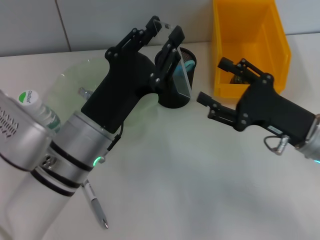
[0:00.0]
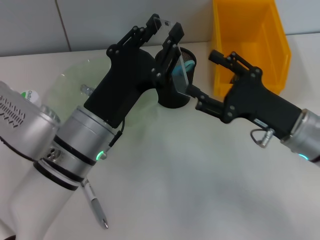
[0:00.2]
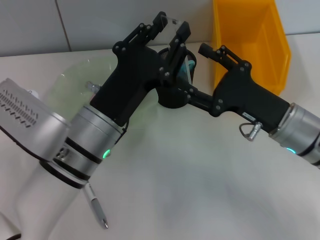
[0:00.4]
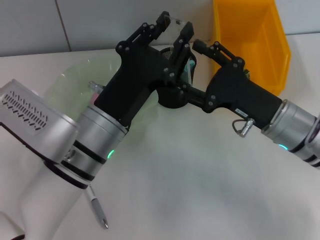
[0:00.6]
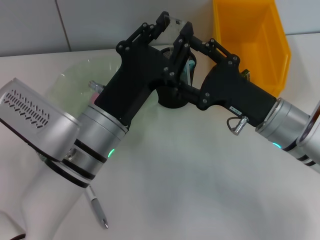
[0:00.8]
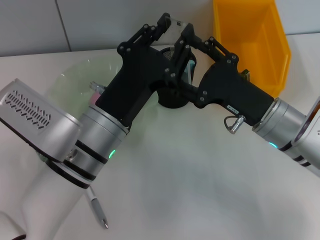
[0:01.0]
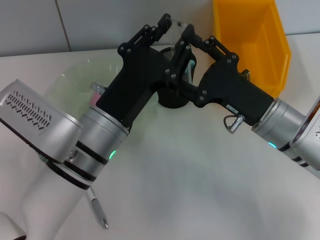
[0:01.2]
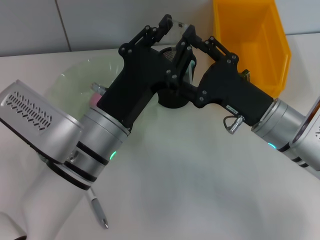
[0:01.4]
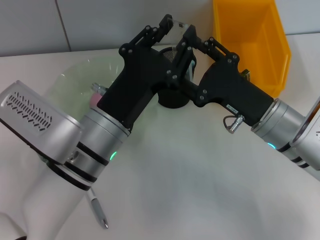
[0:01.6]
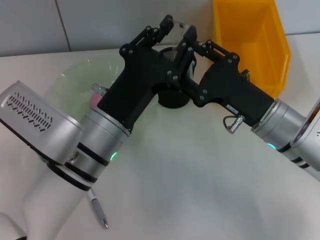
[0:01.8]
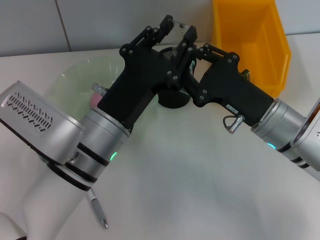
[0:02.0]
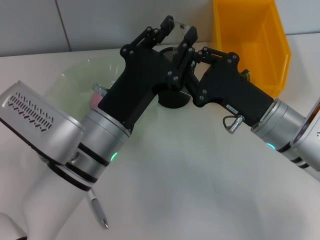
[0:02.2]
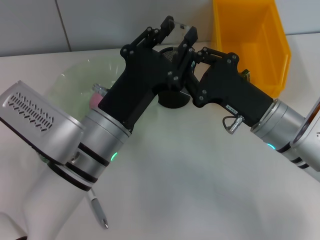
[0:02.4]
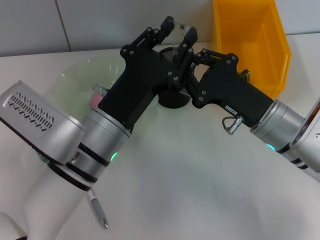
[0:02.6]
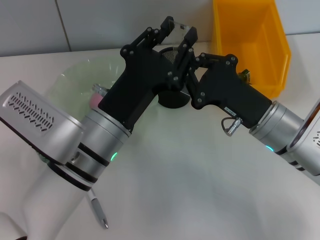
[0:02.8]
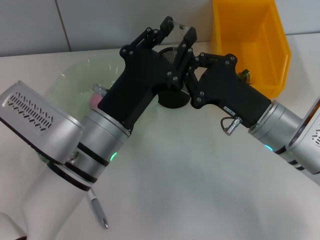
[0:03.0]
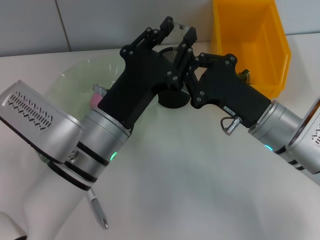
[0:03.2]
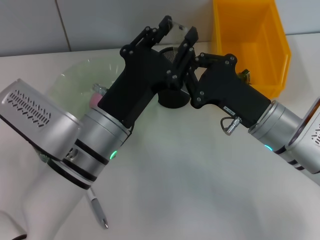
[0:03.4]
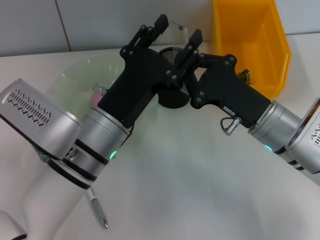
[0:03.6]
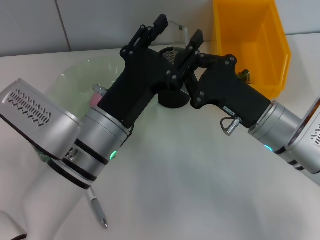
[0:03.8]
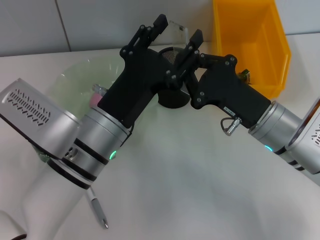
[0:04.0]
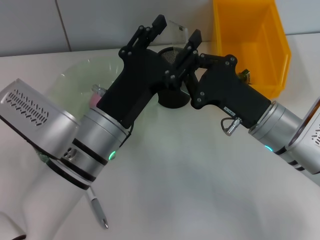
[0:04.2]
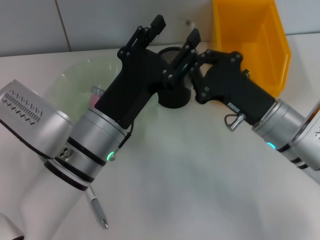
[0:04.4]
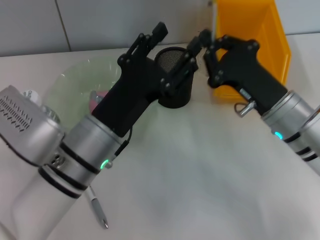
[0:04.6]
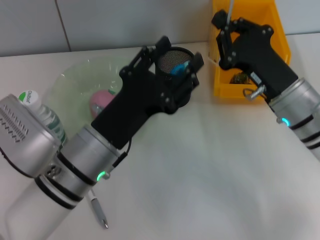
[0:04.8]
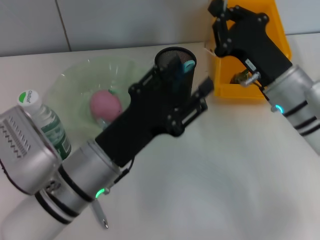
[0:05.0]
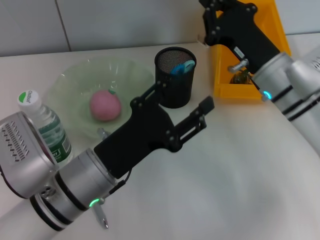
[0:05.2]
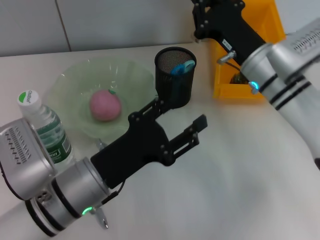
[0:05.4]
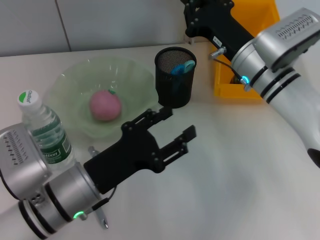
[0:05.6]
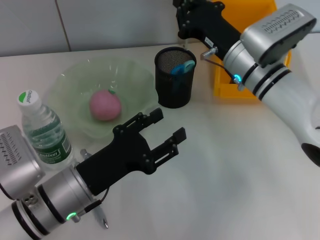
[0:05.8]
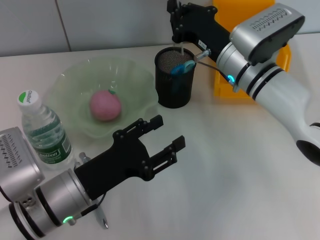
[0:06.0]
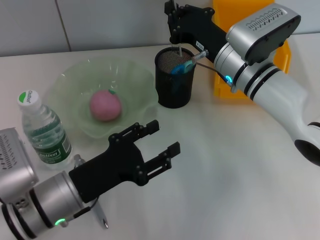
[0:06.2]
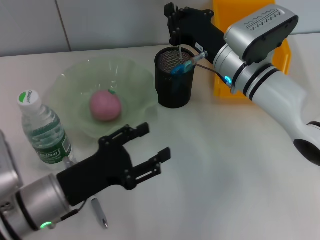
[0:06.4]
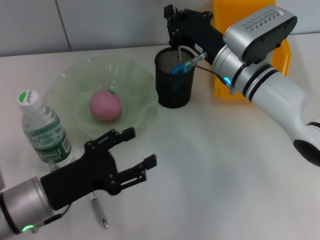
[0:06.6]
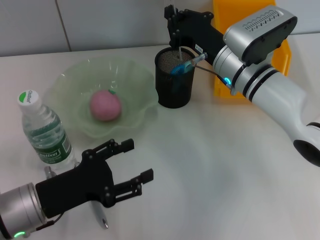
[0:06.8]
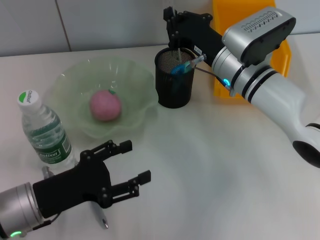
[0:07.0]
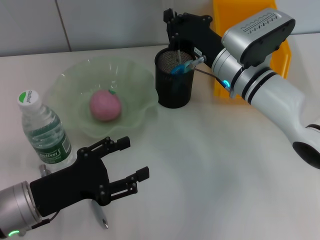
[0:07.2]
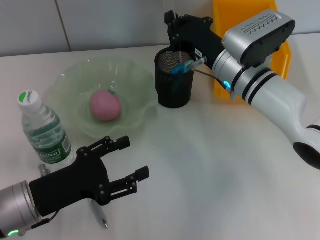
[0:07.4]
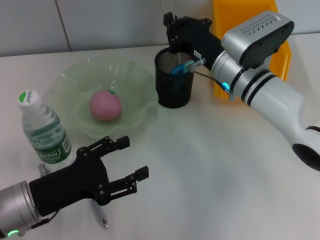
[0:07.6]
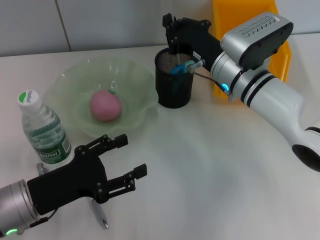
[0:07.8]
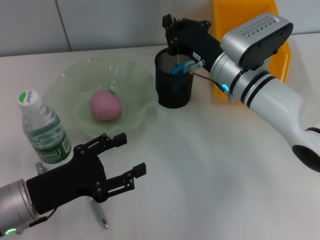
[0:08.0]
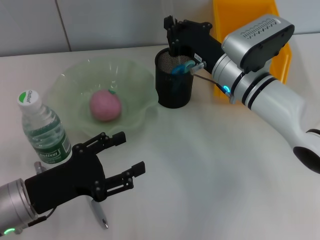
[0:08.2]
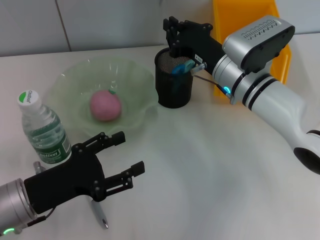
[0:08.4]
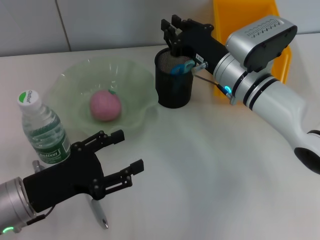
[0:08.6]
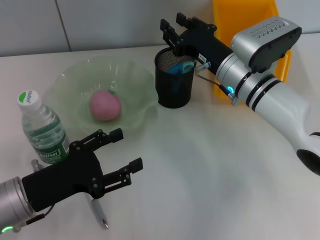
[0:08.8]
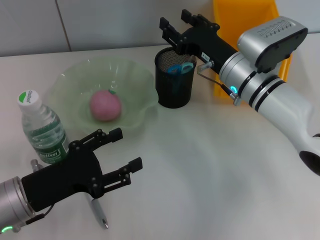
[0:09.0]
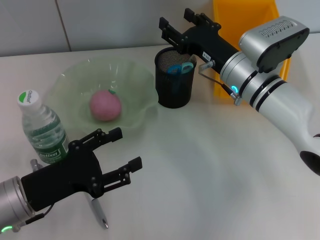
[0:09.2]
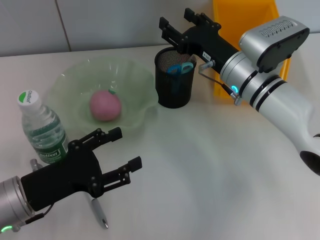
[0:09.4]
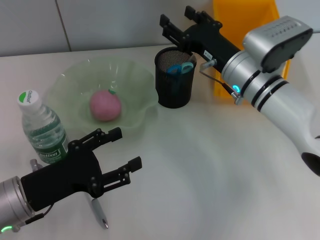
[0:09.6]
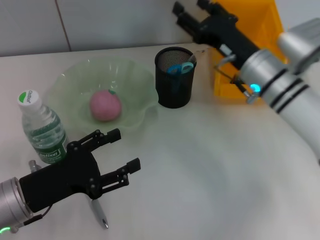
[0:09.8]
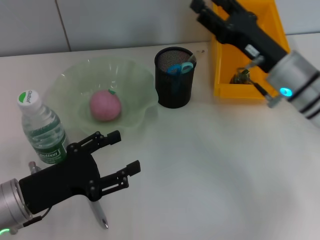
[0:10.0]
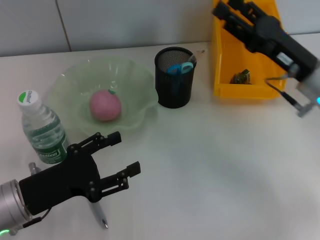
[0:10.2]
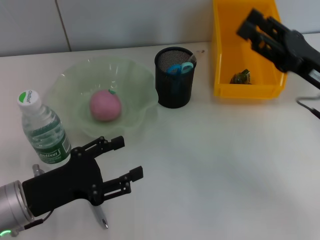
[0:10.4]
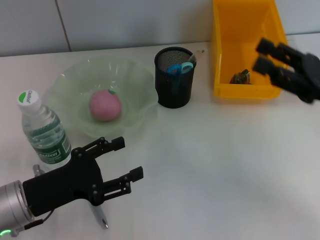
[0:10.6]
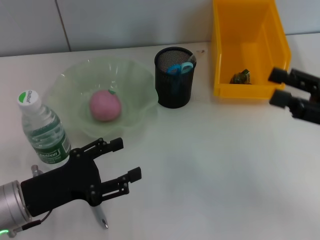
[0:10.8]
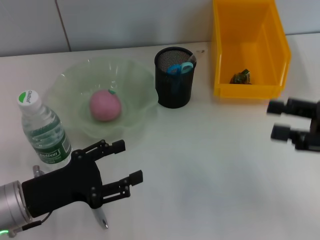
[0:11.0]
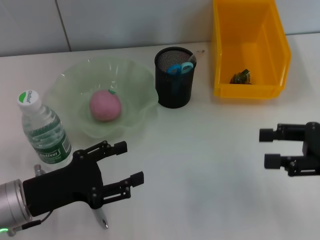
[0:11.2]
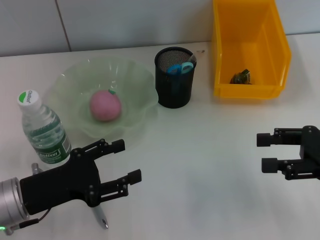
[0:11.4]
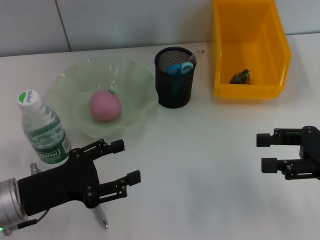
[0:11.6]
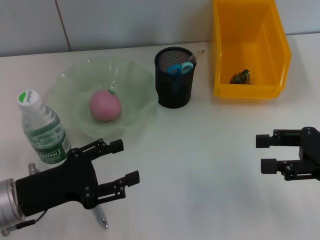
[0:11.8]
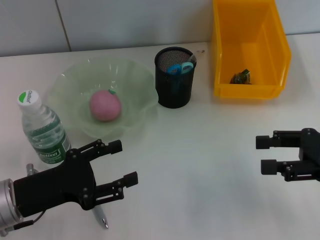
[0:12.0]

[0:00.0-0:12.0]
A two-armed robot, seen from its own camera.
Step, 0:00.0 to 0:03.8: Pass the ruler from the left hand to the right hand.
Step, 0:04.2 to 0:09.0: Place the ruler into the pen holder with the right hand.
0:00.0 to 0:01.6: The right gripper travels to the left by some 5 cm.
0:01.6 to 0:03.0: The right gripper closes its fingers.
0:03.0 to 0:04.4: The left gripper opens.
0:04.4 to 0:06.0: The right gripper moves forward, some 10 cm. Meanwhile the left gripper travels to the left and downward by some 10 cm.
0:06.0 to 0:07.6: The left gripper heads to the left, covering roughly 5 cm.
0:07.6 to 0:09.0: The right gripper opens up.
0:09.0 to 0:10.4: The right gripper shifts about 15 cm to the right and backward, and opens up.
0:10.4 to 0:12.0: The right gripper moves to the right, roughly 5 cm.

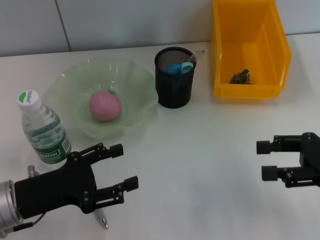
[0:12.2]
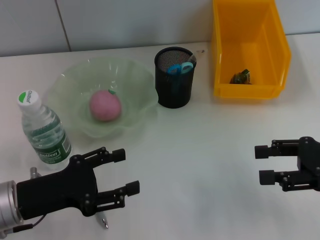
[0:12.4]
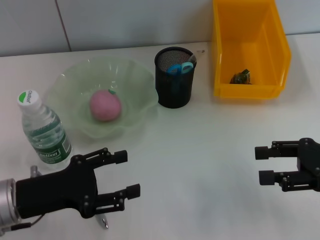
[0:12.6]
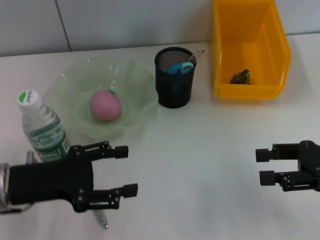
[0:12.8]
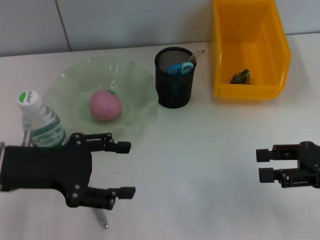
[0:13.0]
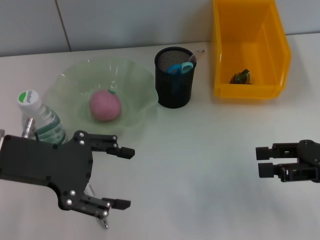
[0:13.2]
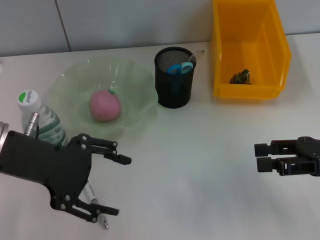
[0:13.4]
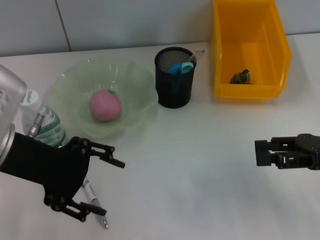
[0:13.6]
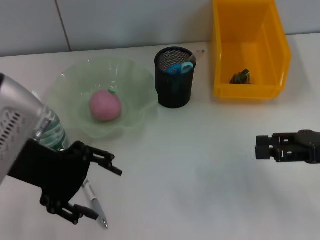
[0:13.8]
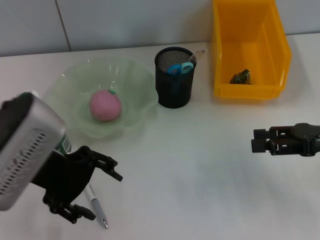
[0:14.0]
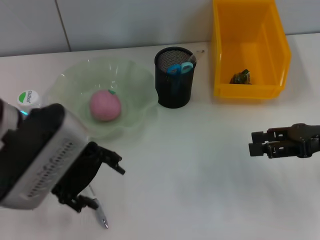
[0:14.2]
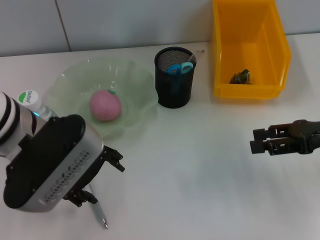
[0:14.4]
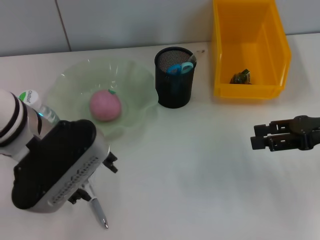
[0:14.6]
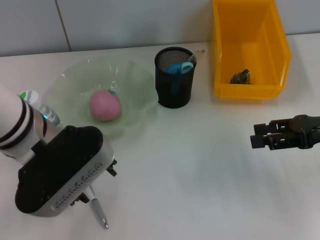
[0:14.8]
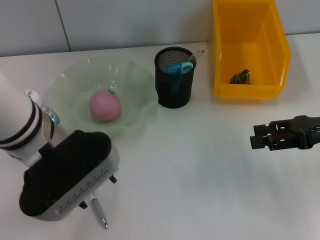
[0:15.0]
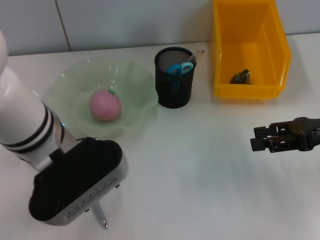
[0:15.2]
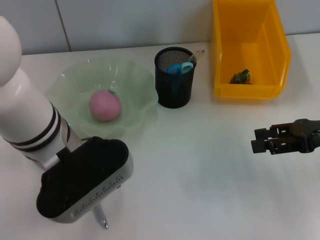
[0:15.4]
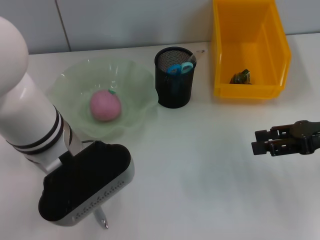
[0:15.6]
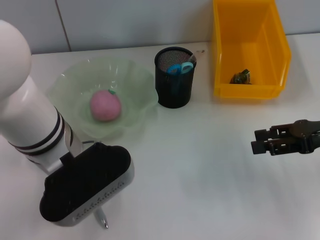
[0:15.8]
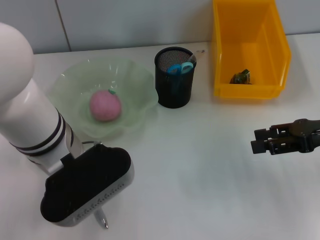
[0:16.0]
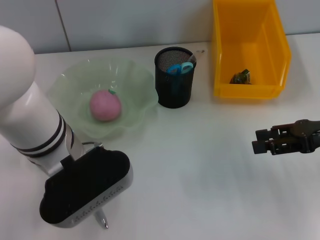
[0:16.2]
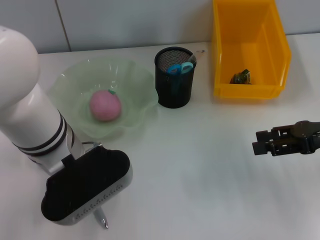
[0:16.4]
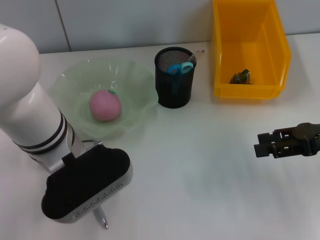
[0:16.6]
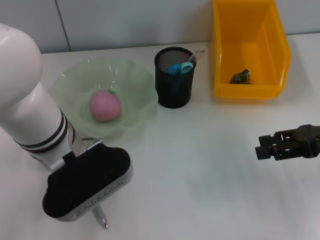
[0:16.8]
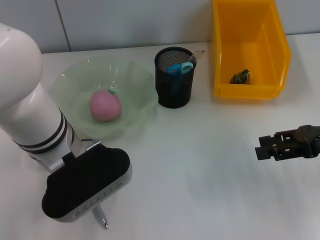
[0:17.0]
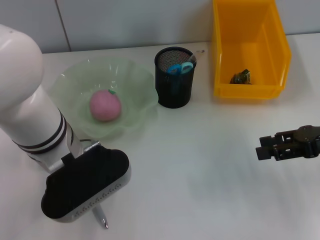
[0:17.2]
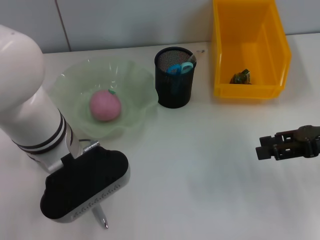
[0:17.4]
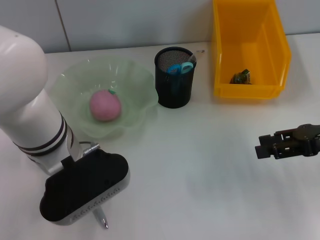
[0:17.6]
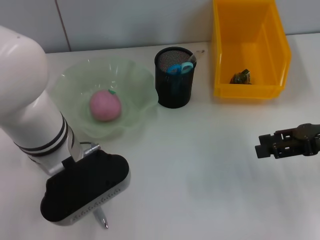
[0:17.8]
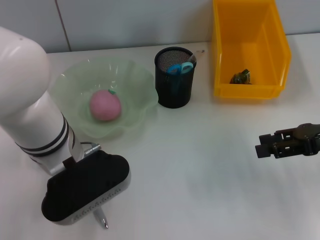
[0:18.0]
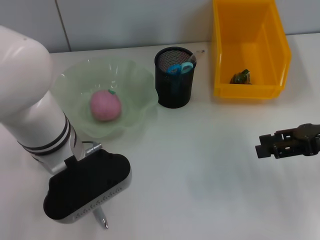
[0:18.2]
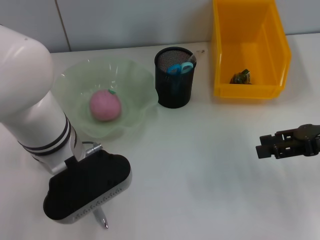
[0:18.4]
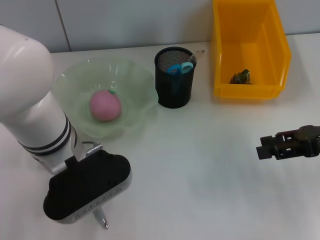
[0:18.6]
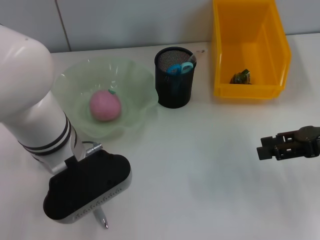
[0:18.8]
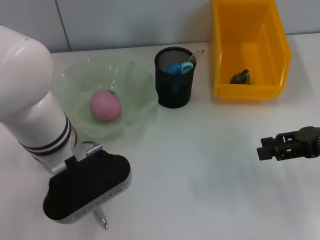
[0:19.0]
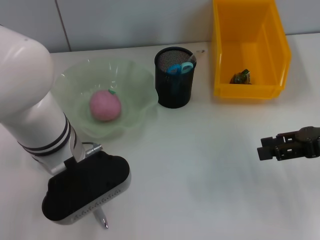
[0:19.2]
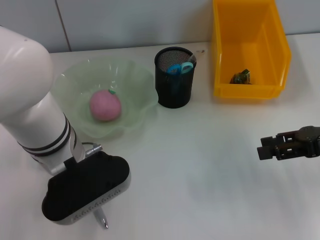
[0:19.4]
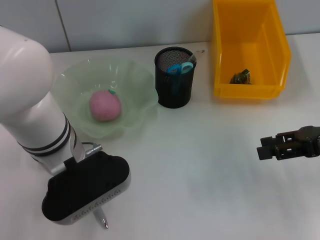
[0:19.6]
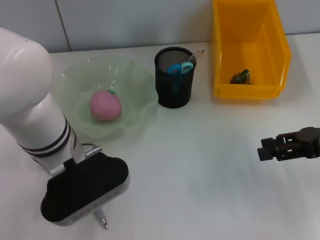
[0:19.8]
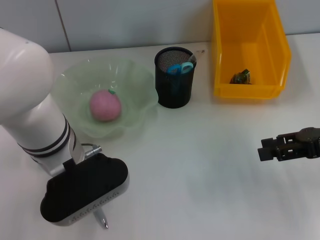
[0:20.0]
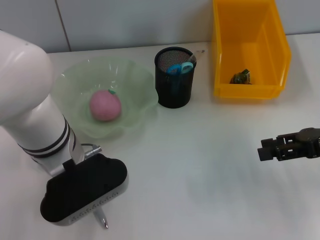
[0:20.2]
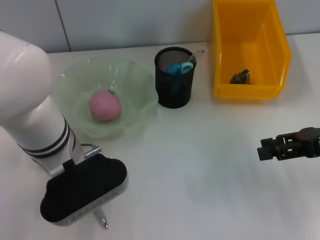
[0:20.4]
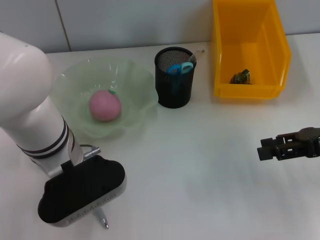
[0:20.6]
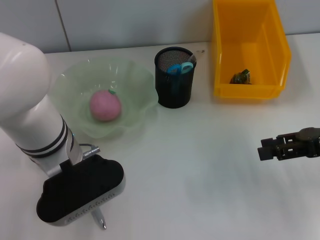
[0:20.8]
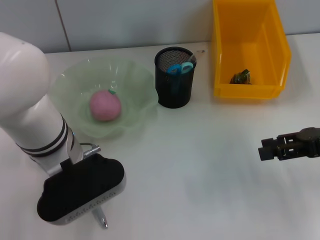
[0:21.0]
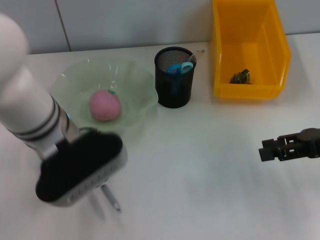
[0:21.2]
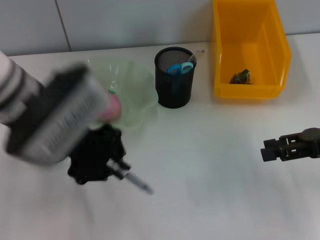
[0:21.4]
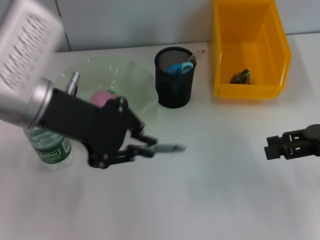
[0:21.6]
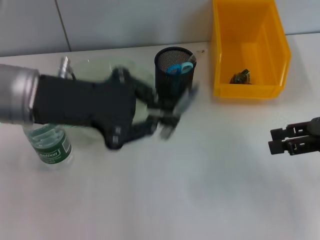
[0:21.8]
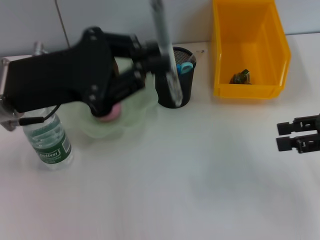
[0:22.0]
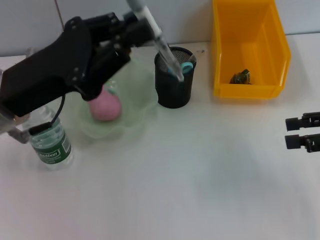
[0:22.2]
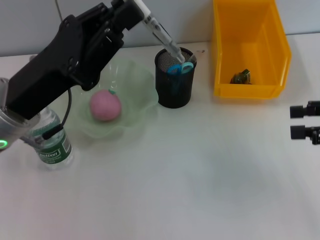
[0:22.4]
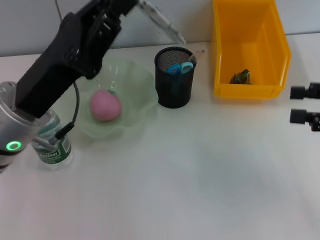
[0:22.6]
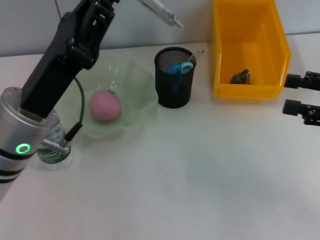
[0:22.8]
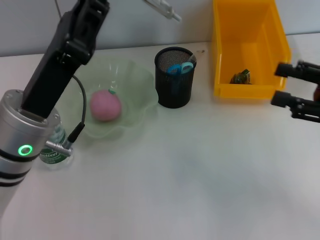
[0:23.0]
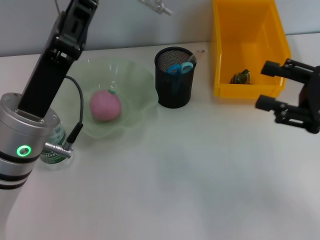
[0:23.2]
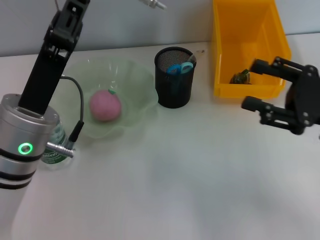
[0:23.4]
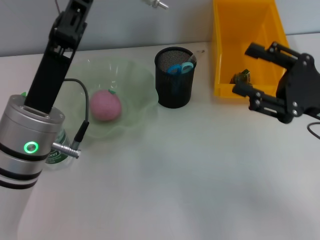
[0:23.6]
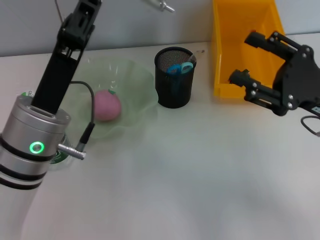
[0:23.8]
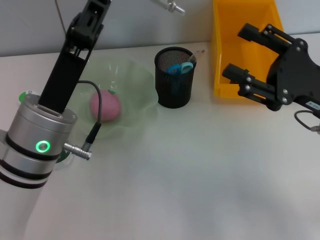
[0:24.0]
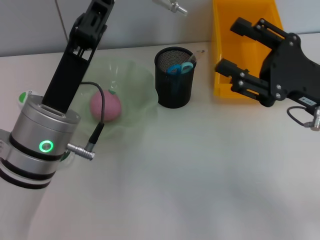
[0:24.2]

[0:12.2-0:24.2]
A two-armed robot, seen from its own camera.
Step, 0:12.2 to 0:20.8: Grab the gray spring-action pen with the left hand.
0:12.2 to 0:13.8: The left gripper heads upward, covering about 15 cm.
0:13.8 to 0:15.2: The left gripper shifts approximately 5 cm to the right.
0:15.2 to 0:16.6: The grippers move only a little.
0:16.6 to 0:19.8: The two grippers keep their place.
0:19.8 to 0:21.2: The grippers move only a little.
0:21.2 to 0:22.6: The left gripper goes roughly 5 cm to the left.
0:22.6 to 0:24.2: The left gripper ends up about 5 cm from where it was. Meanwhile the right gripper goes roughly 10 cm to the left.
